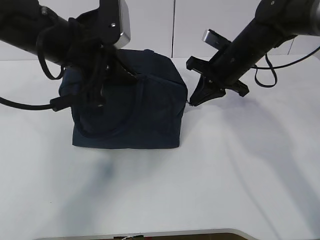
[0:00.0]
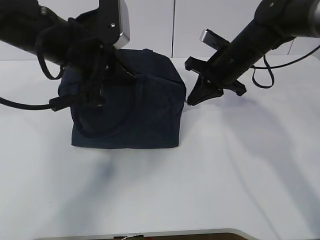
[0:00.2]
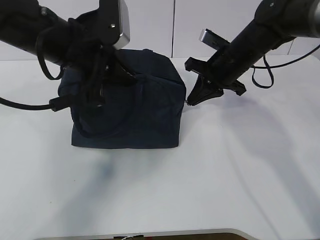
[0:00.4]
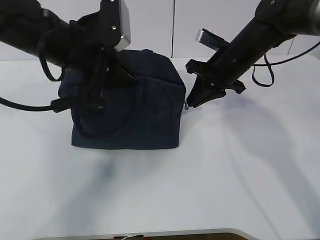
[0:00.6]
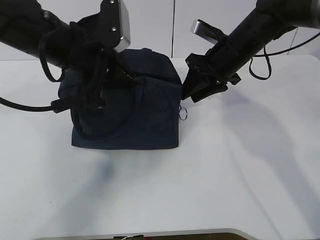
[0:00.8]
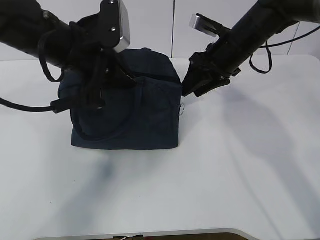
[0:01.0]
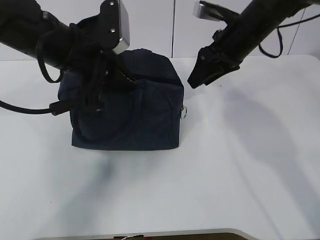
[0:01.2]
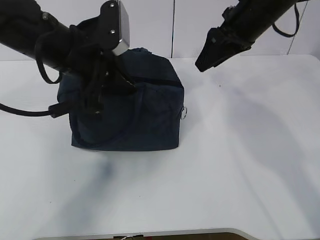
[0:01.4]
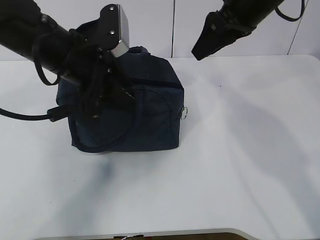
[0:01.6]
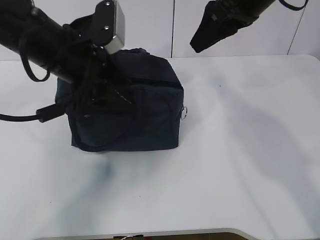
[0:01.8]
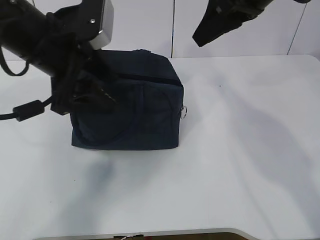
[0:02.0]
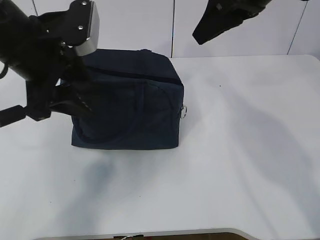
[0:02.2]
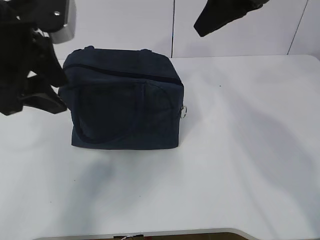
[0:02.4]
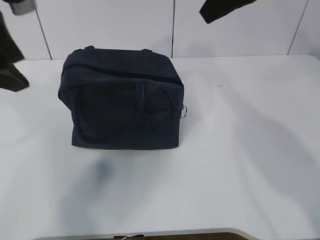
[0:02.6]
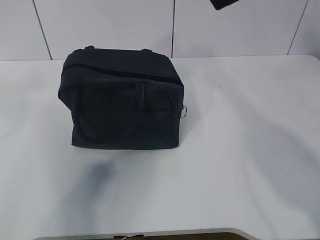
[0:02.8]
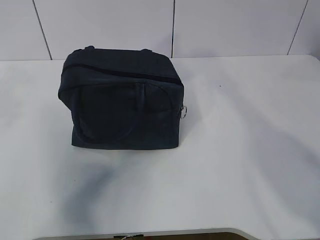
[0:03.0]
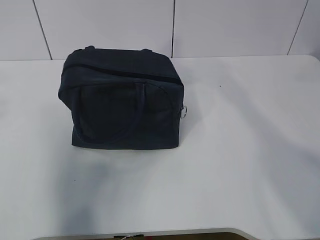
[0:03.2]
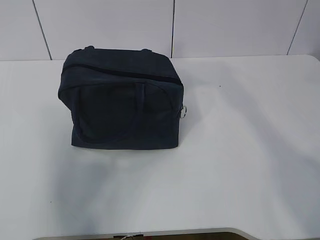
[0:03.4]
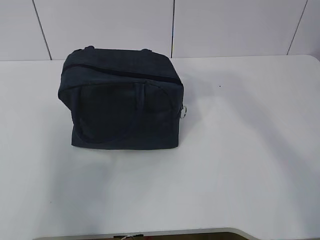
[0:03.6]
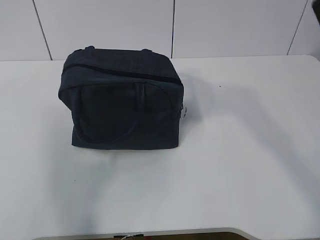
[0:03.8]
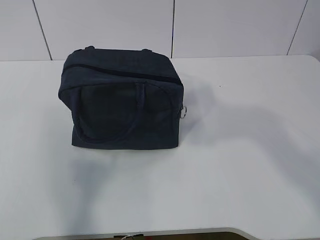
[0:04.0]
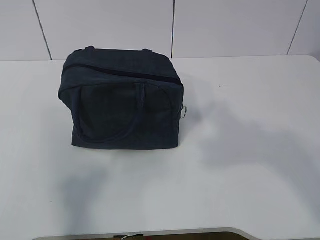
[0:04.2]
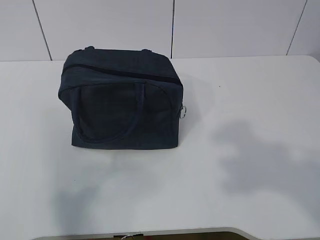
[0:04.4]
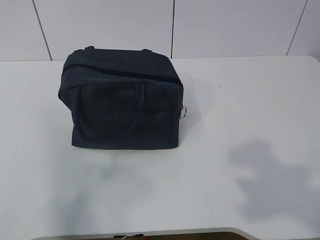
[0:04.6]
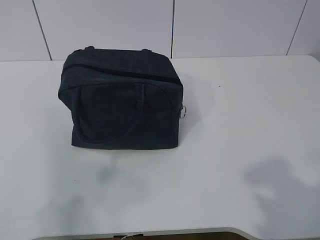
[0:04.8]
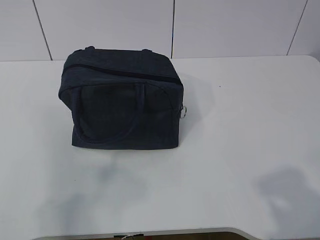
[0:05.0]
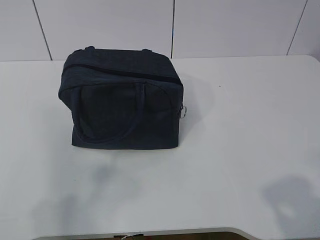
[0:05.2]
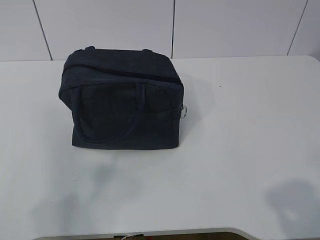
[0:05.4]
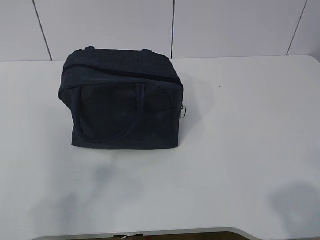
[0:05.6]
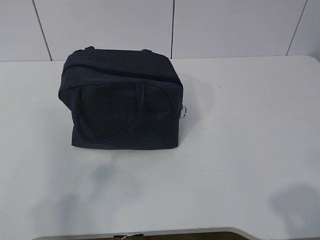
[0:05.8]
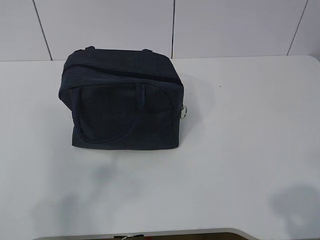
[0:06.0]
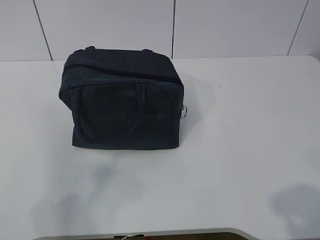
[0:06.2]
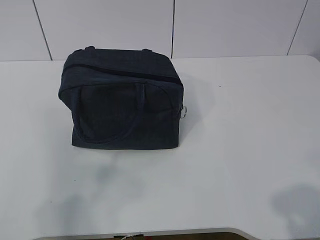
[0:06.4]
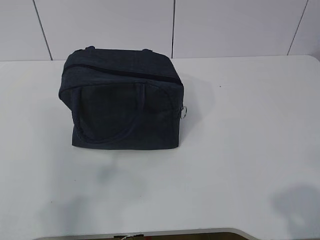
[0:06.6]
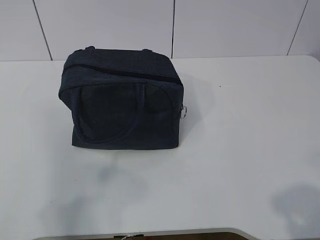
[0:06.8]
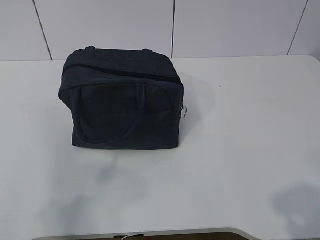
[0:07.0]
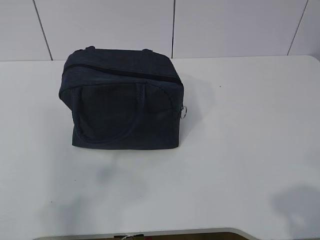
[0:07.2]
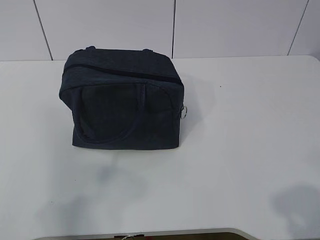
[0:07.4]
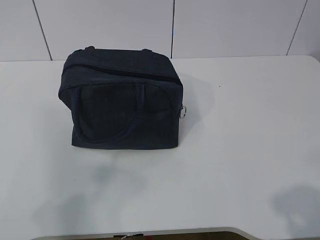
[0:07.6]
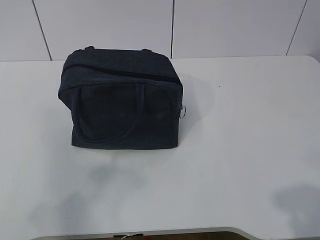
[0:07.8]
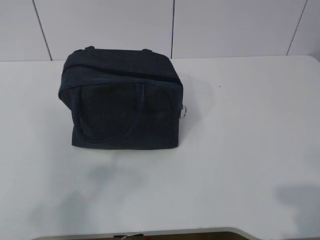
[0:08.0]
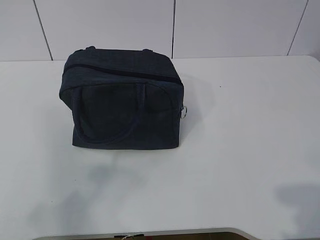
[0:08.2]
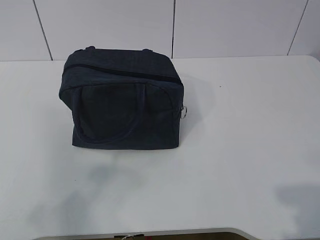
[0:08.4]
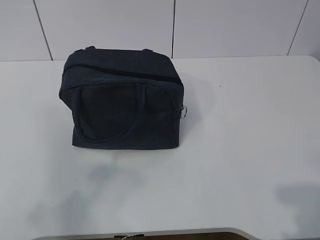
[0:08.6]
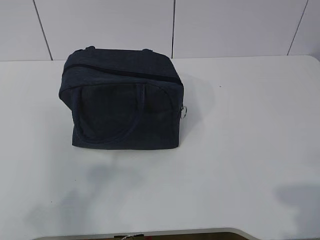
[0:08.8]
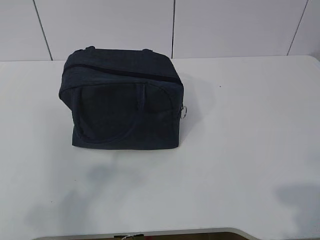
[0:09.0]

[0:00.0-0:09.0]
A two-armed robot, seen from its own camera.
0:00.0 to 0:01.6: The left gripper opens its fingers, while the right gripper heads upward, covering some 10 cm, and opens up.
0:01.6 to 0:03.0: The right gripper heads upward and backward, covering roughly 15 cm, while the left gripper moves upward, to the left and backward, some 20 cm.
0:03.0 to 0:04.4: The two grippers go some 25 cm backward.
0:04.4 to 0:06.0: The right gripper is displaced downward by approximately 15 cm. Meanwhile the left gripper is displaced downward by approximately 5 cm.
